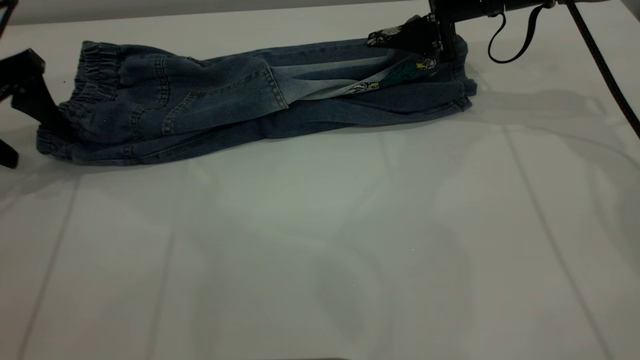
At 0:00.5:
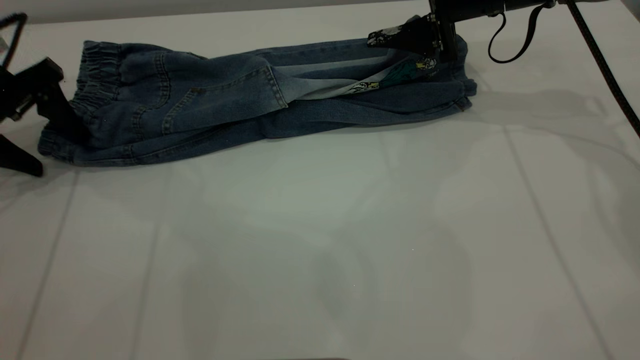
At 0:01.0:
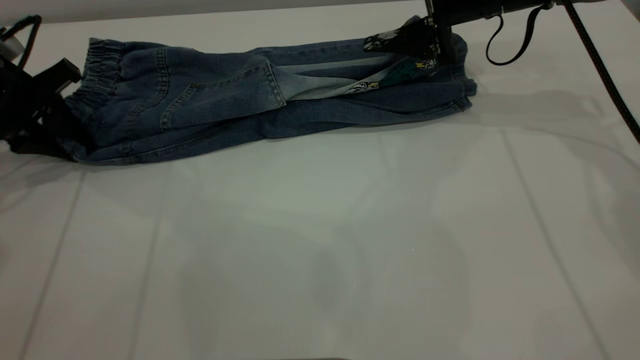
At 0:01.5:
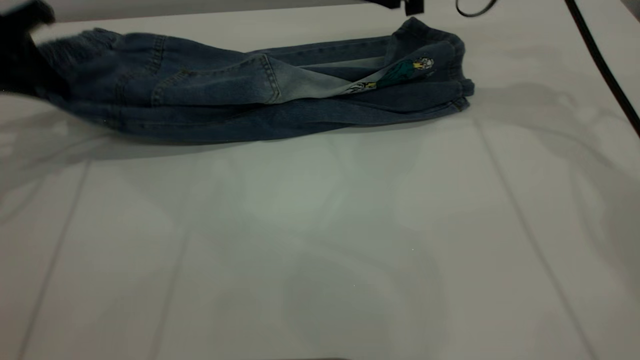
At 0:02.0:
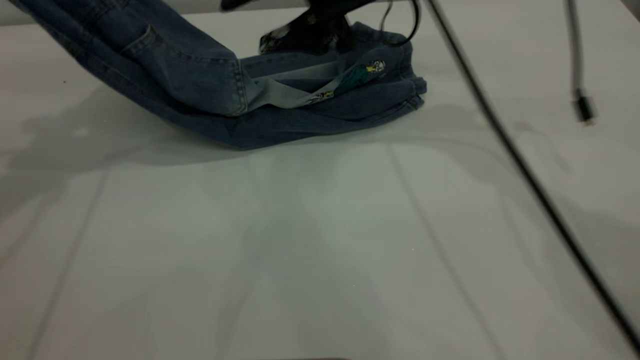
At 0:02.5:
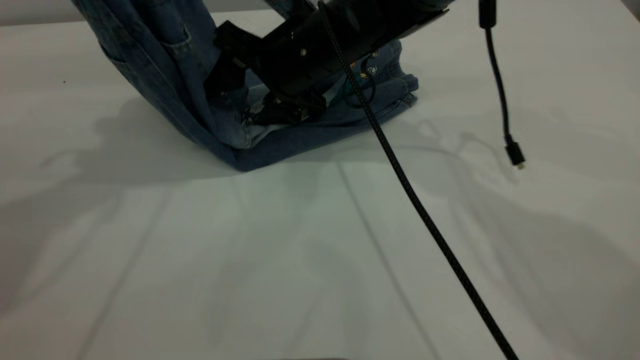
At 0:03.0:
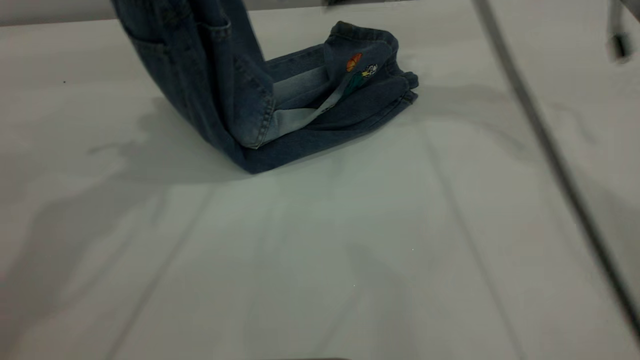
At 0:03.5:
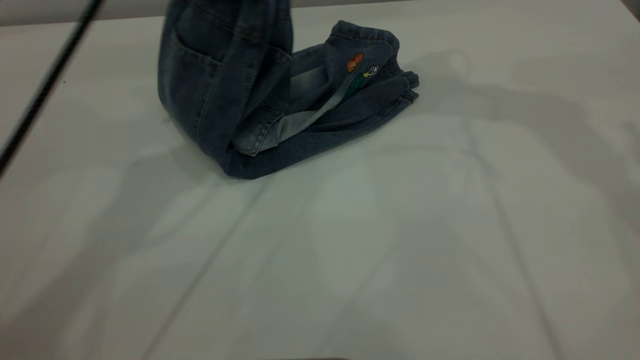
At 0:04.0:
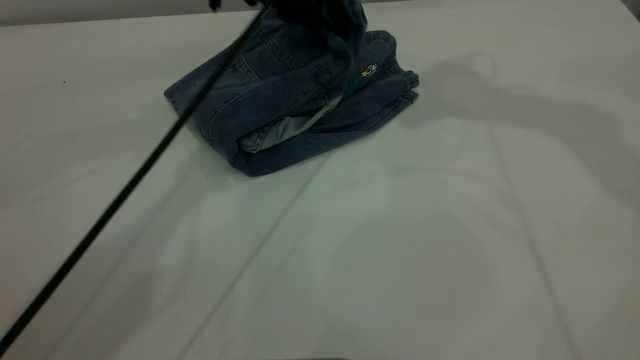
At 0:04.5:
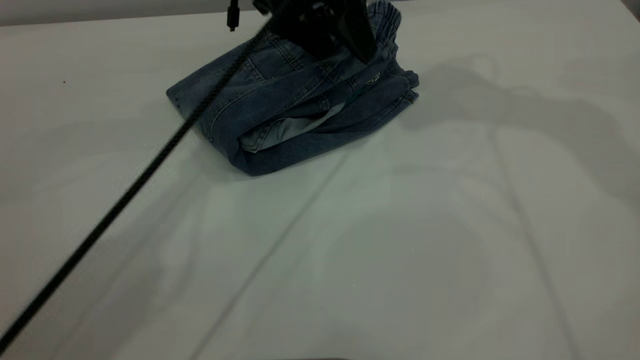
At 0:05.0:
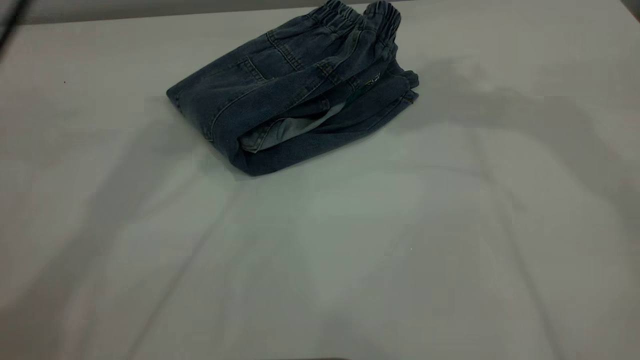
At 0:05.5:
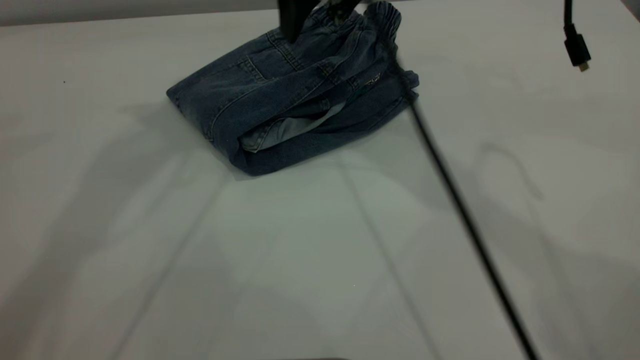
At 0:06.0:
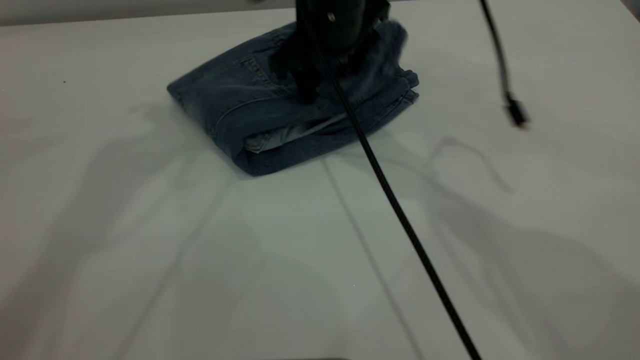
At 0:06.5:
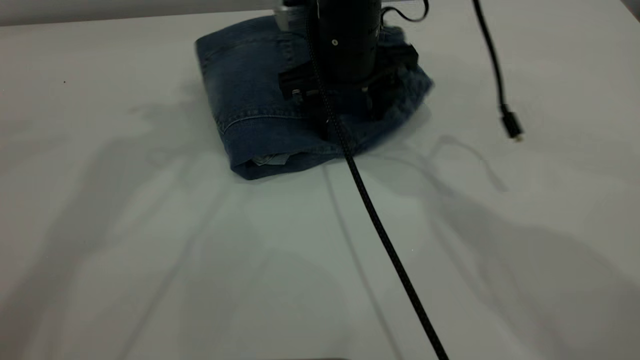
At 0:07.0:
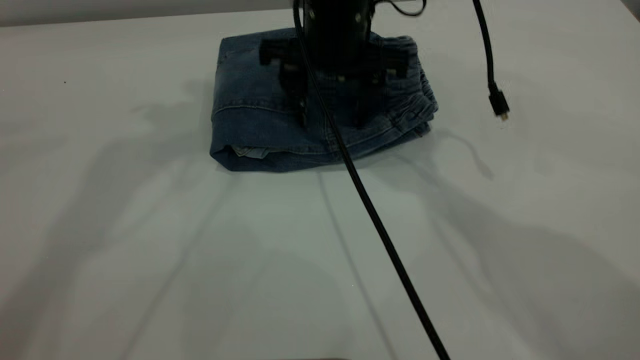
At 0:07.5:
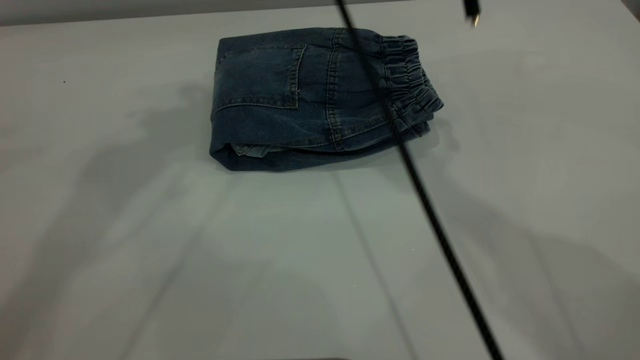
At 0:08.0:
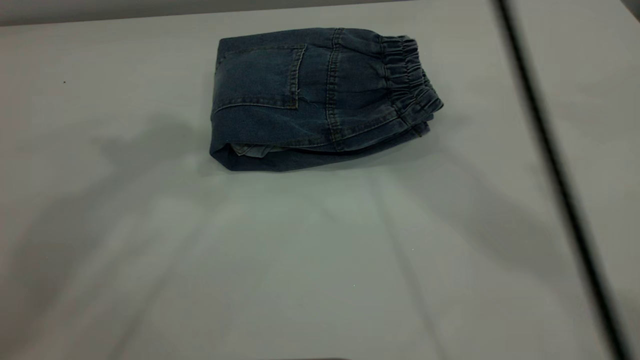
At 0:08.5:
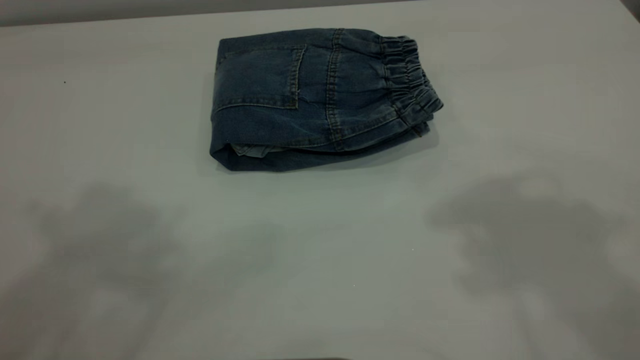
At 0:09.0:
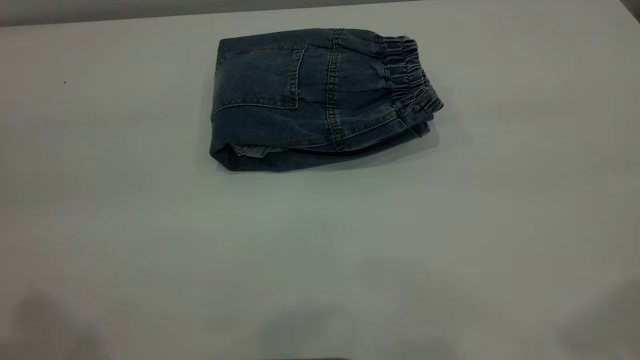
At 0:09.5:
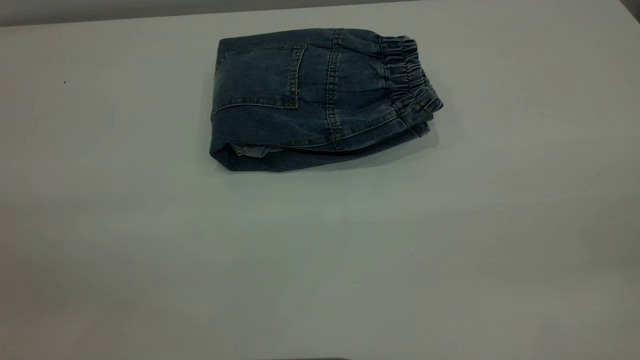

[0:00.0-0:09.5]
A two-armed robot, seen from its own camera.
Step, 0:00.0 to 0:04.5: Fold the pants from left to right.
0:00.0 to 0:02.0: The left gripper moves upward, approximately 15 cm, and closes its fingers; the right gripper is displaced to the left by about 15 cm.
0:02.0 to 0:04.0: The right gripper moves upward and to the right, some 25 cm, while the left gripper is displaced to the right and downward by about 30 cm.
0:04.0 to 0:05.5: The right gripper shifts some 20 cm downward and to the left. Meanwhile the left gripper is displaced upward and to the left by roughly 25 cm, and opens up.
0:05.5 to 0:07.5: The right gripper heads upward, covering about 5 cm.
0:07.5 to 0:09.5: The left gripper goes approximately 30 cm backward, while the right gripper heads backward and to the right, covering some 50 cm.

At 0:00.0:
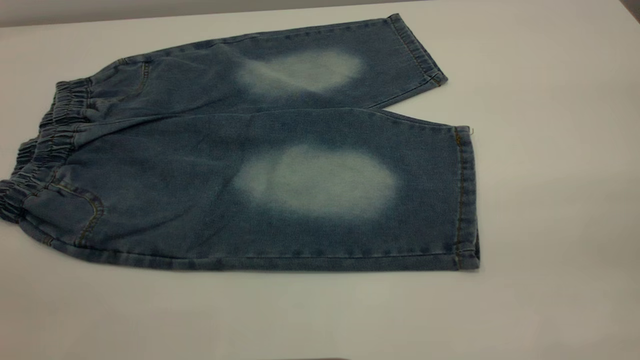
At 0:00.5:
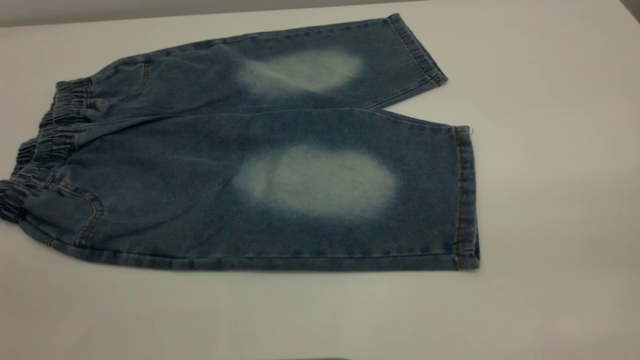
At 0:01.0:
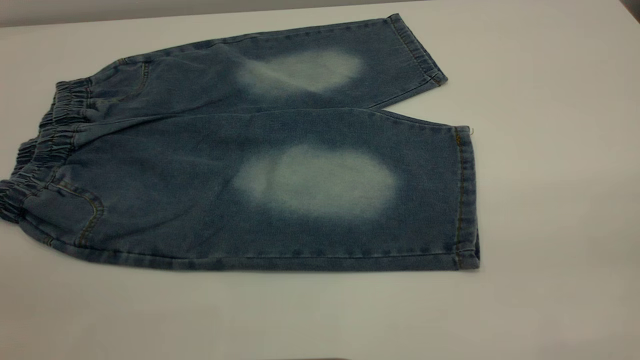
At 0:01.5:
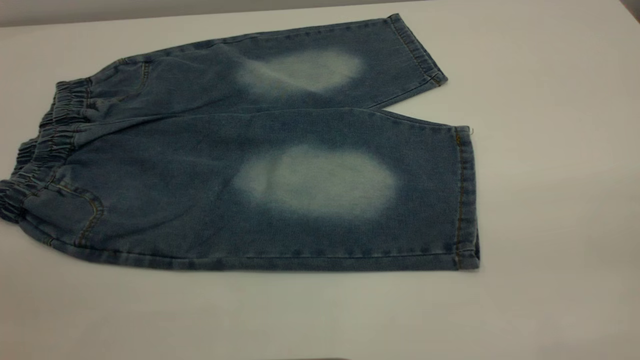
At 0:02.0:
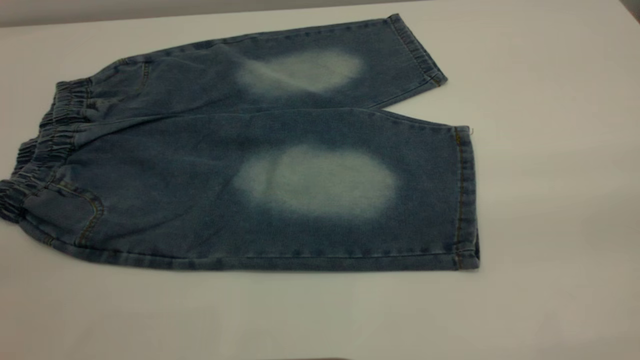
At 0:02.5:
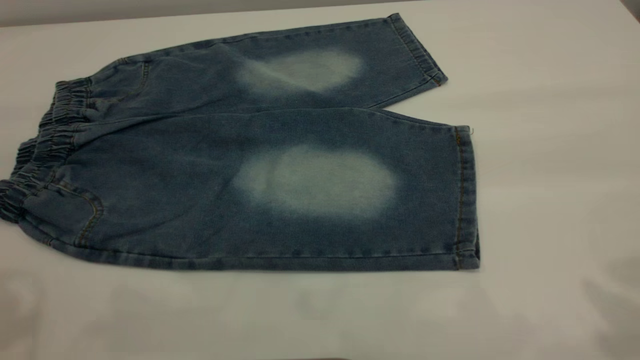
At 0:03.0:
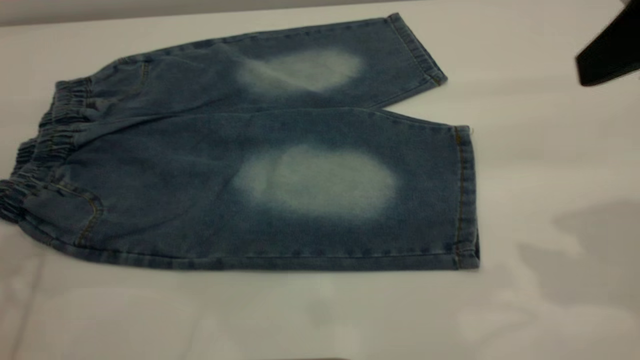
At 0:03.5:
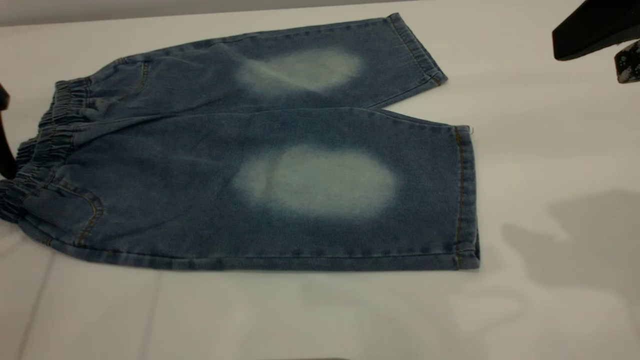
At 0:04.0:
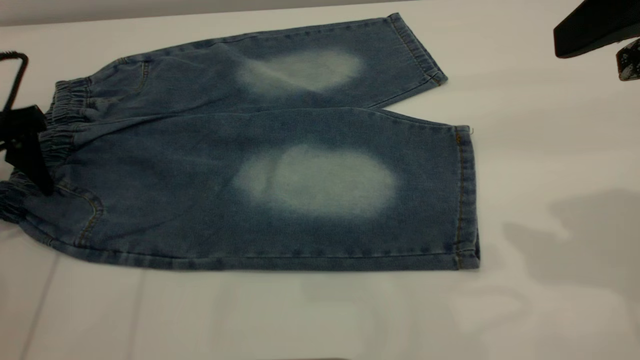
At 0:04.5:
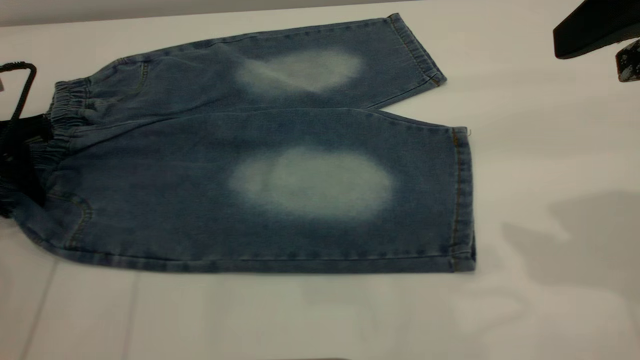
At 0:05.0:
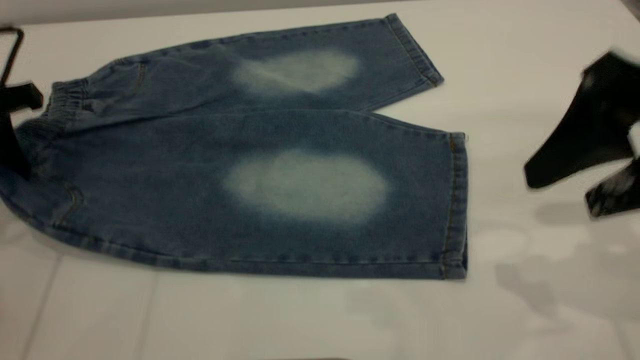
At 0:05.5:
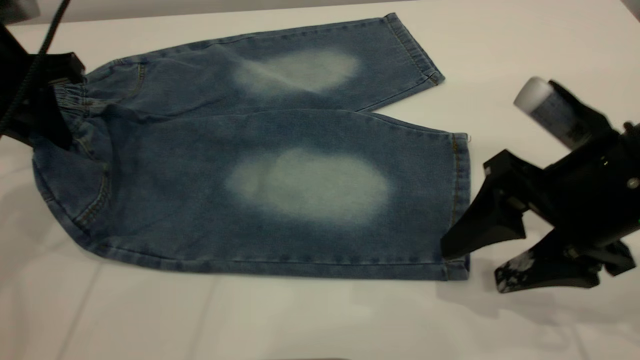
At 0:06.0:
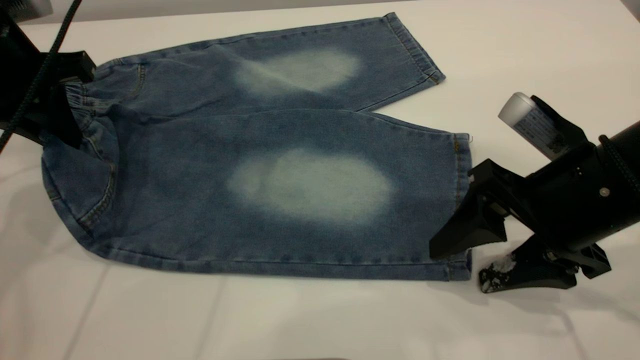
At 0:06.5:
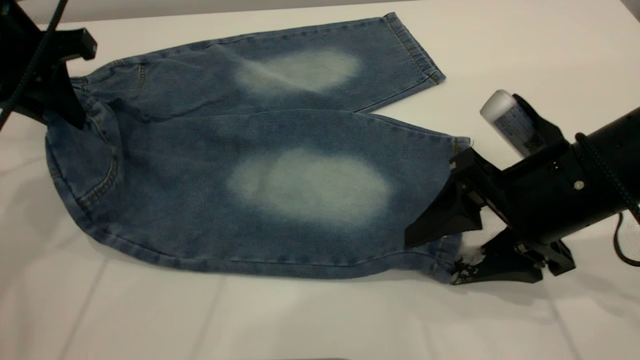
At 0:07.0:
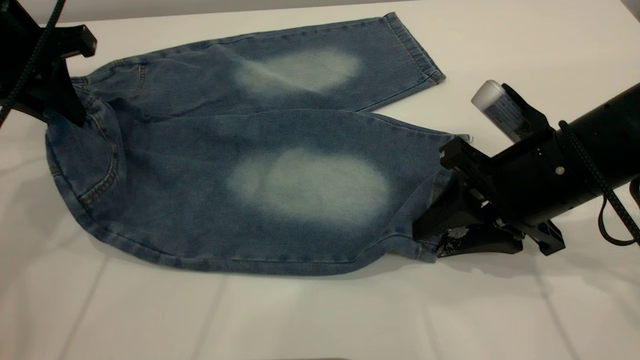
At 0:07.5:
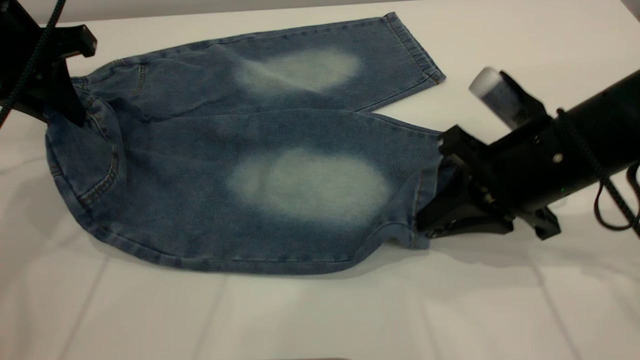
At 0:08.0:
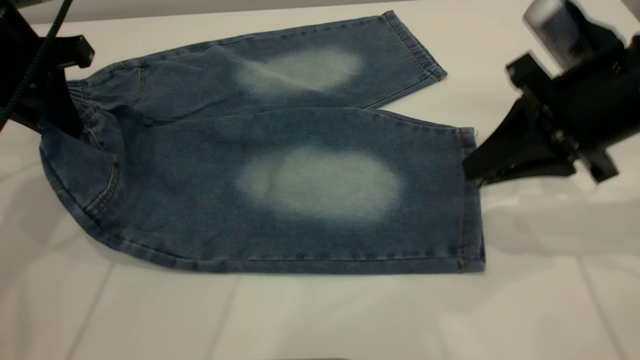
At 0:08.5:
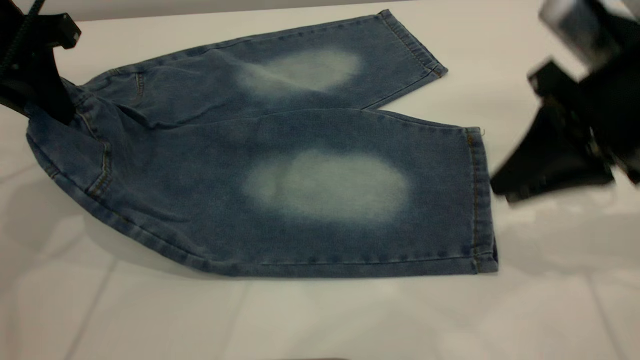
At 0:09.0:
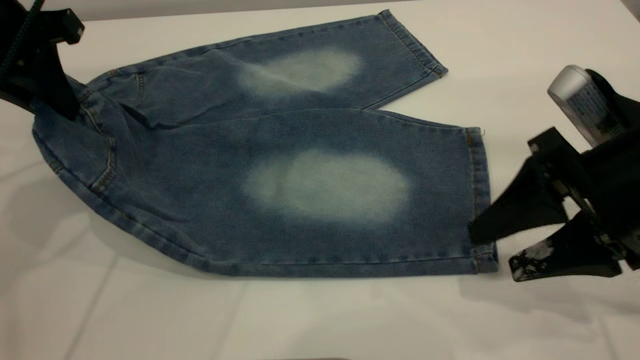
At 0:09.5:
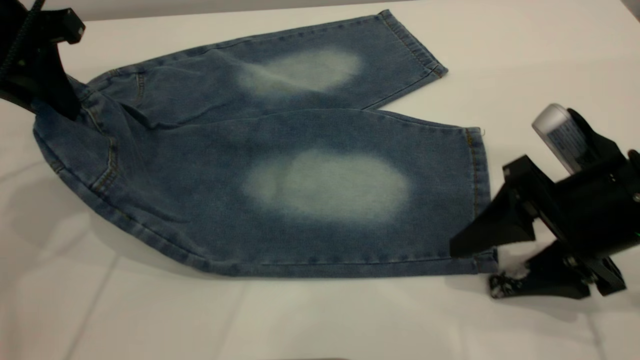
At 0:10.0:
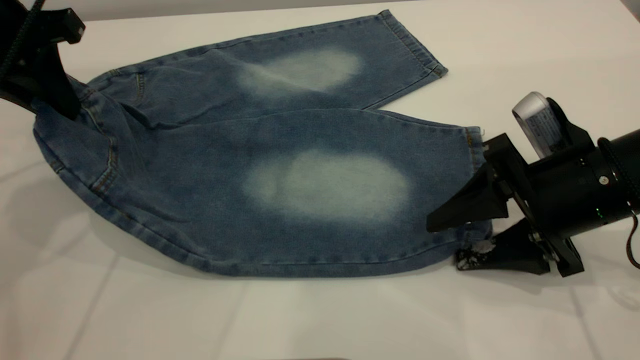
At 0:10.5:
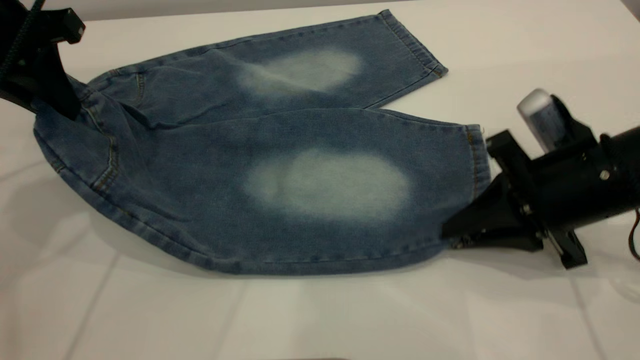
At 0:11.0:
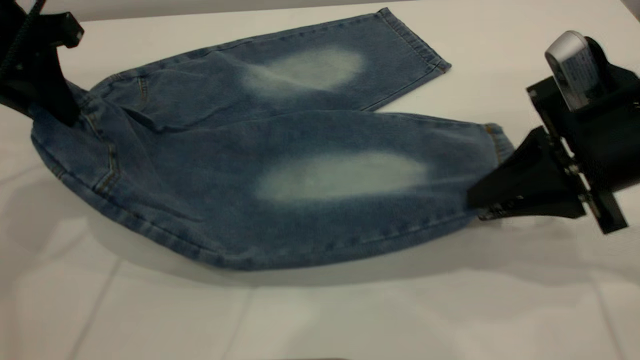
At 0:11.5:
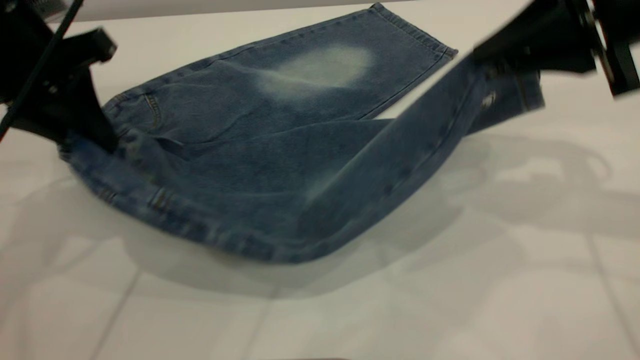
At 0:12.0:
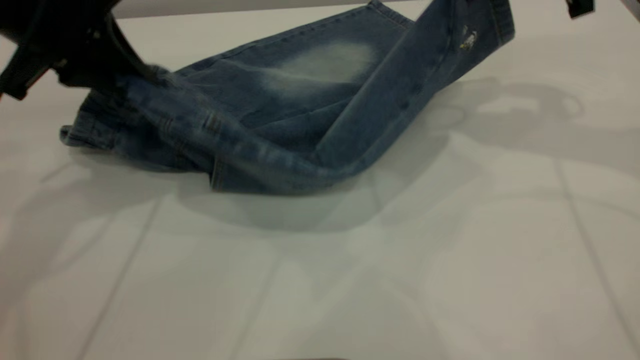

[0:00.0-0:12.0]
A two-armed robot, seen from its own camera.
0:02.0 to 0:04.0: The left gripper heads forward and downward, covering approximately 40 cm. Meanwhile the right gripper shifts roughly 20 cm forward and downward.
0:04.0 to 0:06.0: The right gripper goes approximately 15 cm downward; the left gripper goes about 10 cm to the right and upward, and closes up.
0:06.0 to 0:08.0: The right gripper travels upward by approximately 5 cm, and closes.
0:08.0 to 0:10.0: The right gripper shifts roughly 10 cm downward, and opens.
0:10.0 to 0:12.0: The right gripper shifts about 20 cm upward and forward, and closes.
